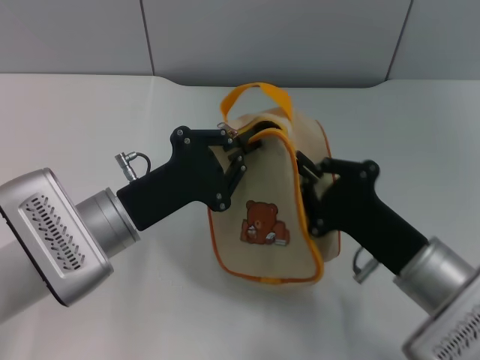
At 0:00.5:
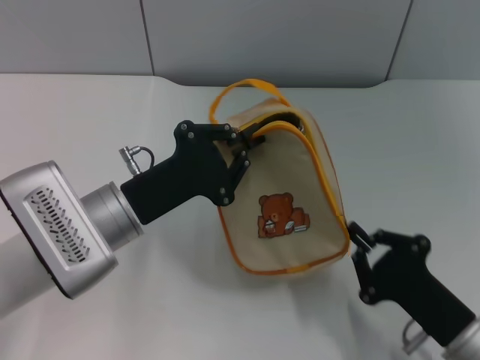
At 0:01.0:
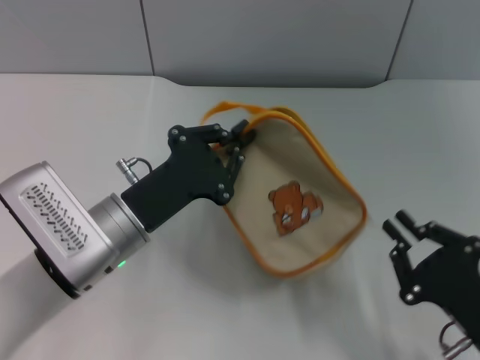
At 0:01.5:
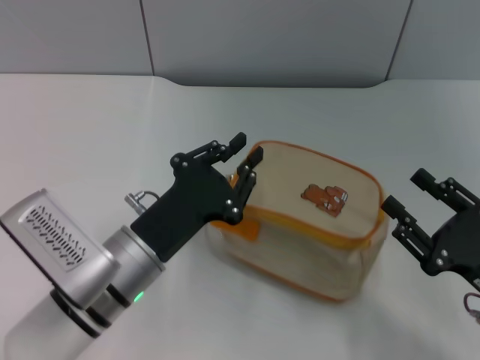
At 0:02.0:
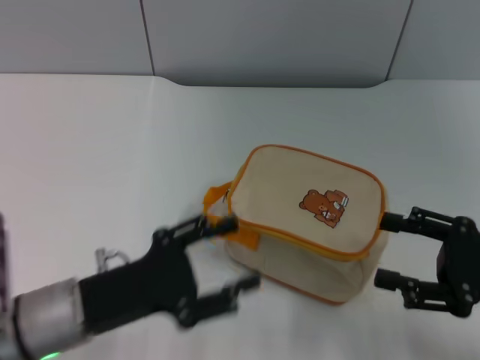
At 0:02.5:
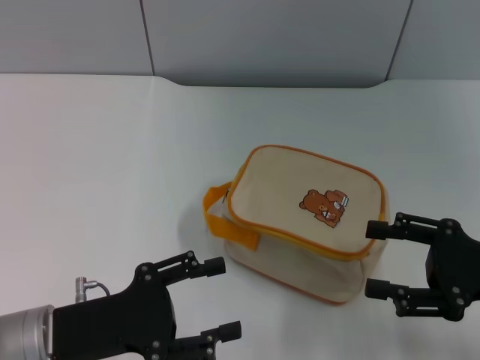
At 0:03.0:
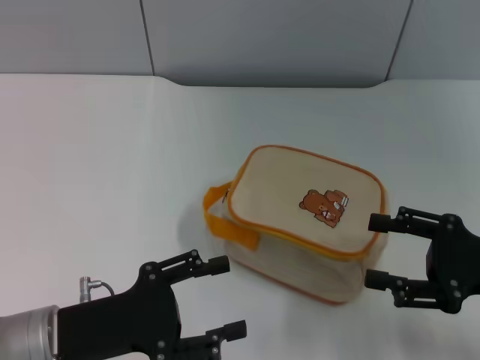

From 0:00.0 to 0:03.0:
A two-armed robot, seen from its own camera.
From 0:00.0 to 0:01.5: The right gripper travels to the right by about 10 cm, and opens. Meanwhile the left gripper ends up roughly 5 cm from where it was.
From 0:01.5 to 0:03.0: The right gripper is displaced upward by roughly 5 cm, and opens up; the left gripper heads to the left, covering roughly 10 cm, and opens.
